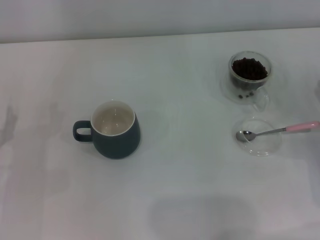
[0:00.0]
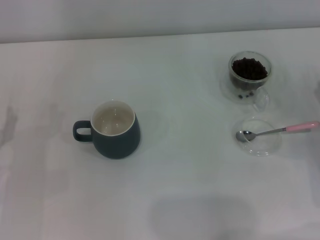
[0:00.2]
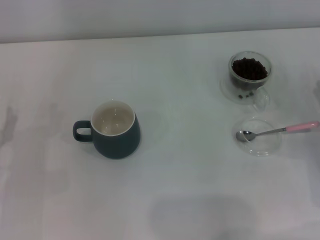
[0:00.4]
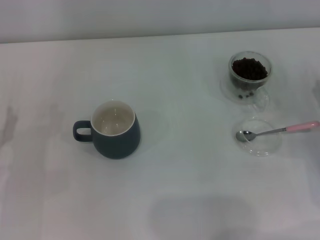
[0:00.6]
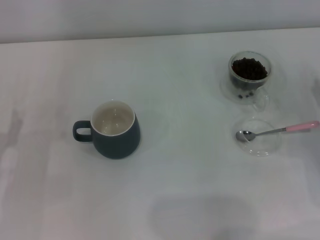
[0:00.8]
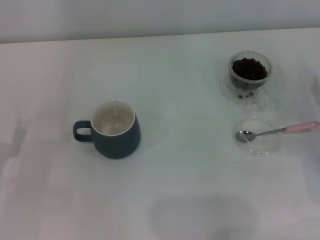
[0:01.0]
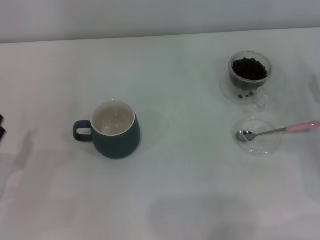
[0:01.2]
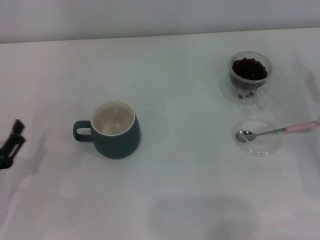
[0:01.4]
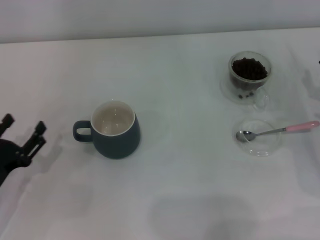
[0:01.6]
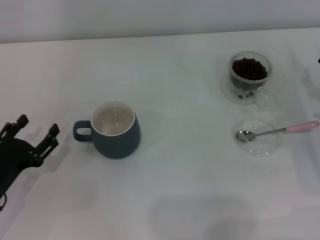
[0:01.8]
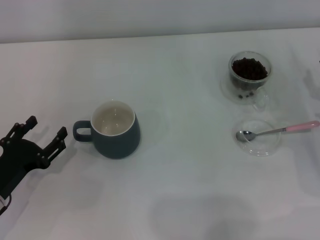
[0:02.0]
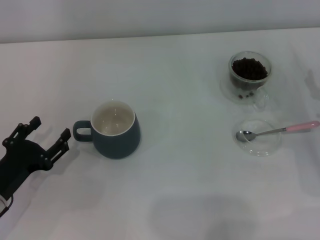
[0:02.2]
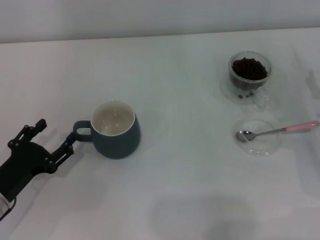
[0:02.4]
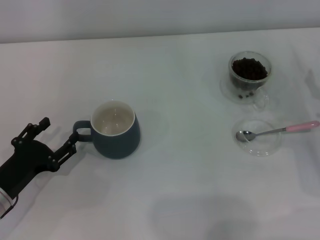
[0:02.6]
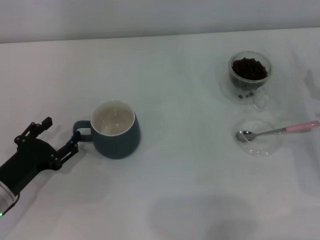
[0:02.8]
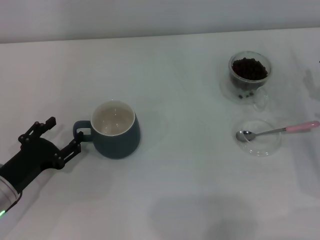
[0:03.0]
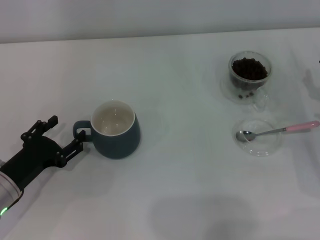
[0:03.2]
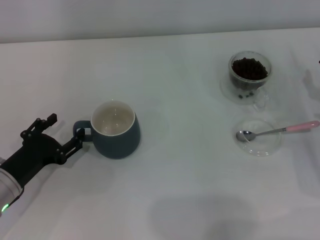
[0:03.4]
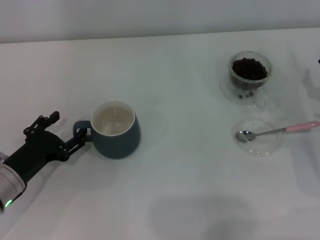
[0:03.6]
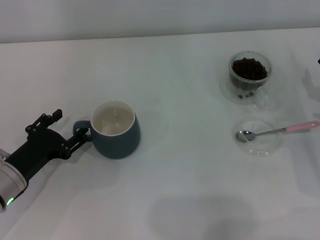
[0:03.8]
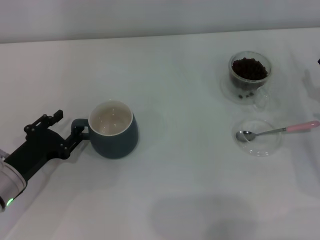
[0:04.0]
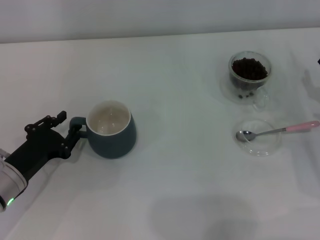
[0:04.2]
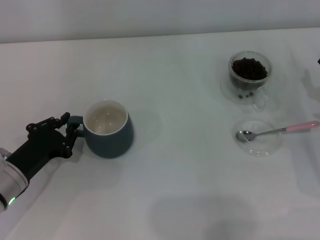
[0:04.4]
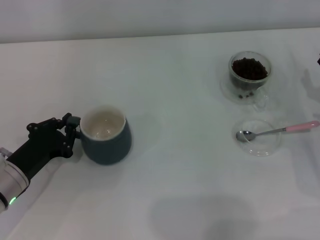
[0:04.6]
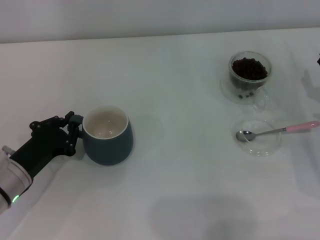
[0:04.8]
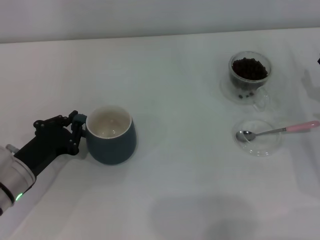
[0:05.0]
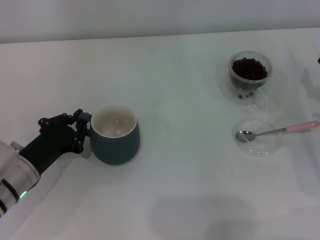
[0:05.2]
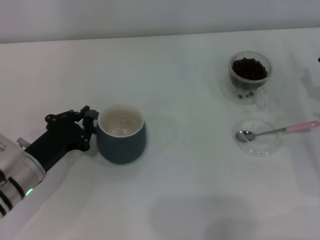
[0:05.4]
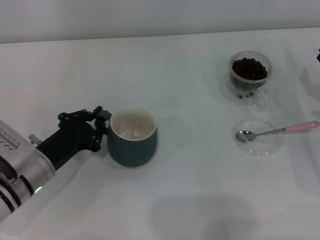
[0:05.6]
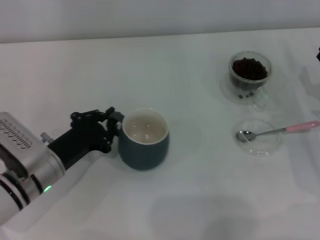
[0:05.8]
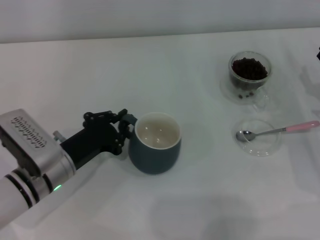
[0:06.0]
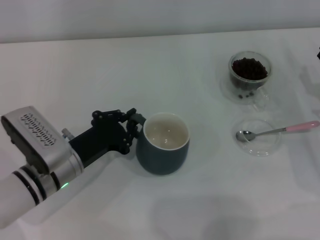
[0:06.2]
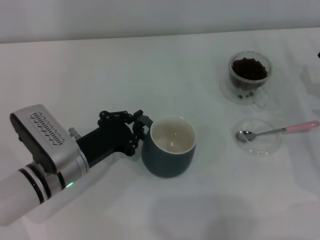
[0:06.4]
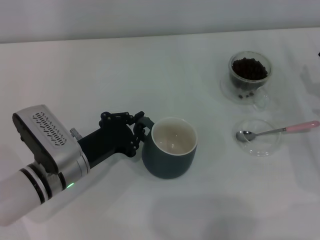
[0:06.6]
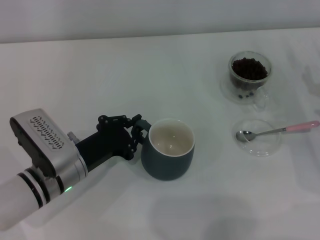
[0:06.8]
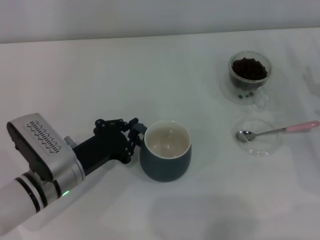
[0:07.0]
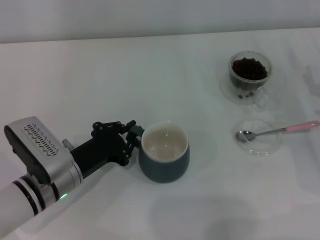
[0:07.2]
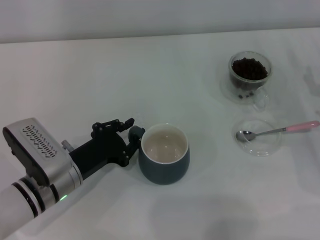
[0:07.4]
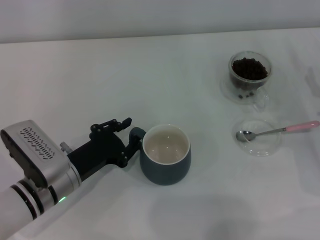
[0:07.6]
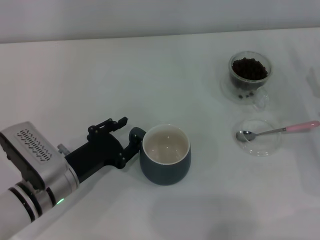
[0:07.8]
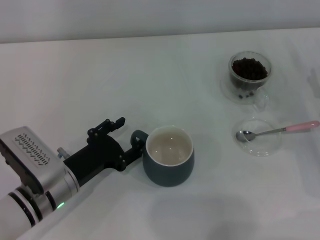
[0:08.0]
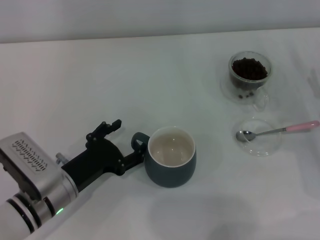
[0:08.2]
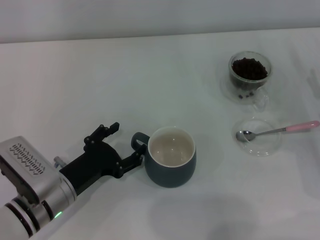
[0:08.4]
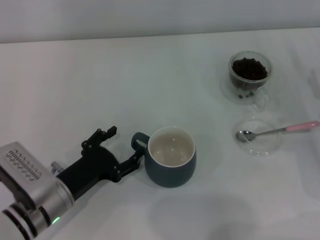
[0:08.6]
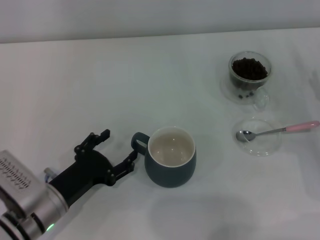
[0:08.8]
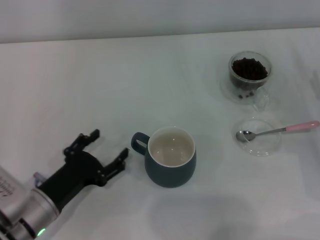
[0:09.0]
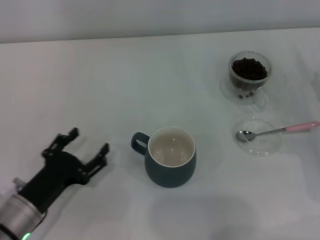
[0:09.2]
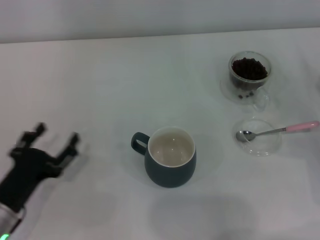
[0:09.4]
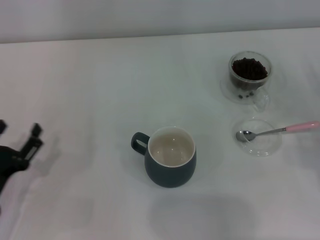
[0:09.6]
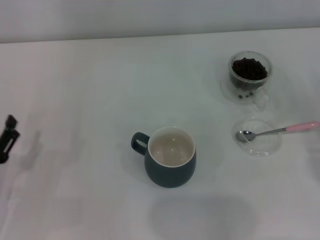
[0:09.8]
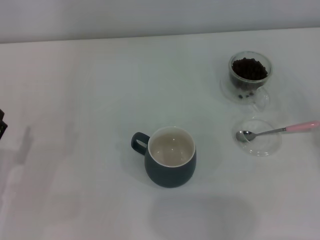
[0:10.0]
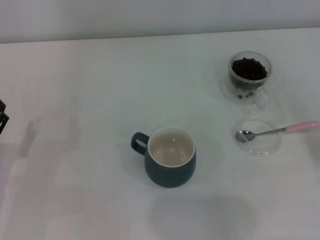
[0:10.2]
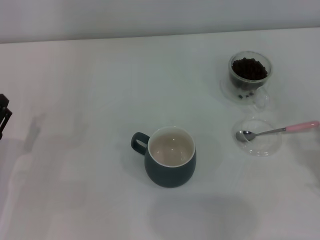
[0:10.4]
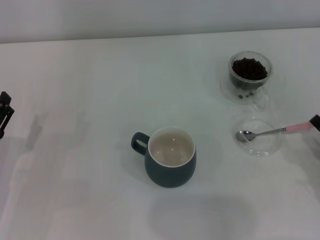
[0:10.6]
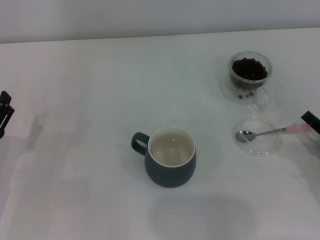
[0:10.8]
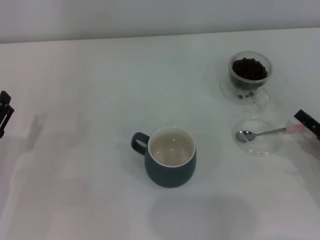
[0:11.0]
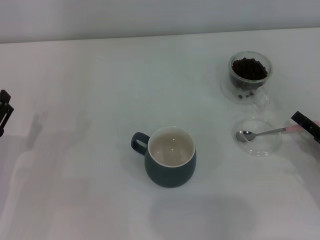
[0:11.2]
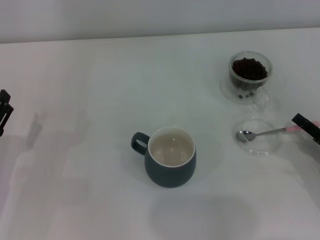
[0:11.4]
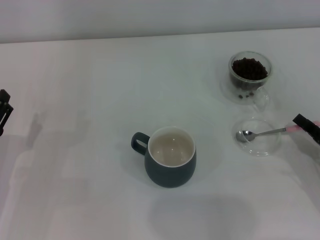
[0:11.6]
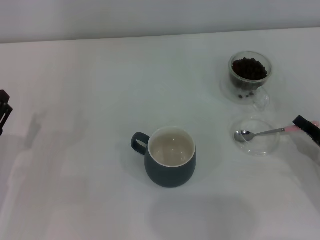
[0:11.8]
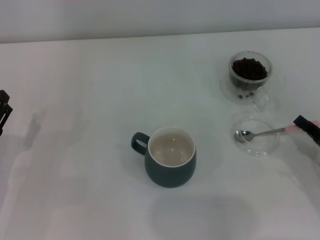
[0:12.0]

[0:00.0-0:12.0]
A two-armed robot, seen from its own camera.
Task of the whole recording: Use a pink spoon to take out the coffee beans from the glass and pour them into the gray cup.
Step, 0:00.0 to 0:08.8: Move the cup to the center of view with the left gripper.
0:01.6 to 0:03.0: There are only small adjustments of the grippers.
0:03.0 to 0:04.4: The left gripper closes.
0:04.4 to 0:06.0: The left gripper shifts roughly 5 cm to the right.
0:06.0 to 0:07.6: The grippers move only a little.
0:07.6 to 0:09.0: The left gripper changes place by some 5 cm, and opens.
0:09.0 to 0:10.4: The right gripper travels backward by some 10 cm, while the left gripper is displaced to the left by about 10 cm.
0:10.4 to 0:12.0: The right gripper closes up.

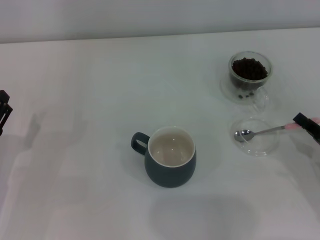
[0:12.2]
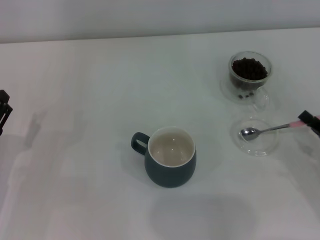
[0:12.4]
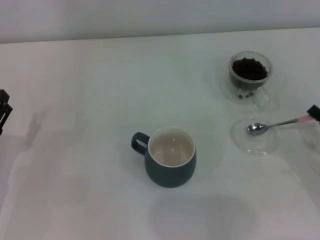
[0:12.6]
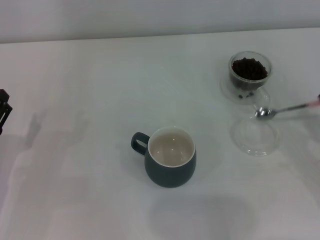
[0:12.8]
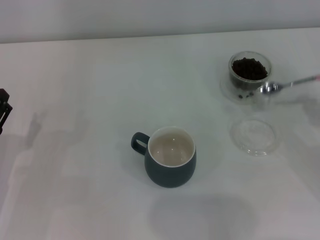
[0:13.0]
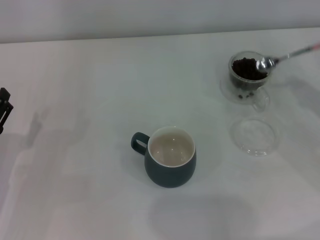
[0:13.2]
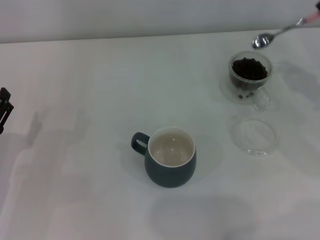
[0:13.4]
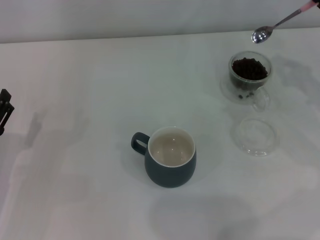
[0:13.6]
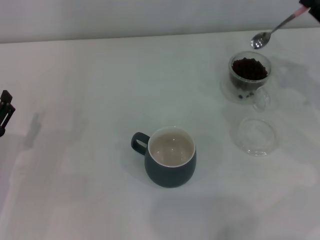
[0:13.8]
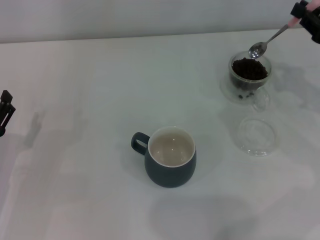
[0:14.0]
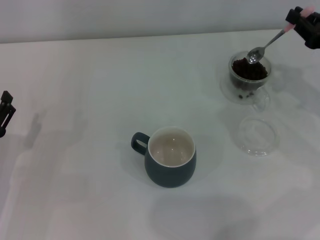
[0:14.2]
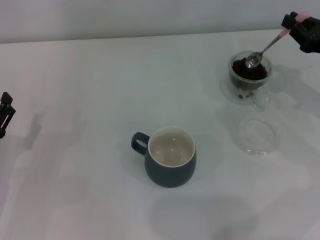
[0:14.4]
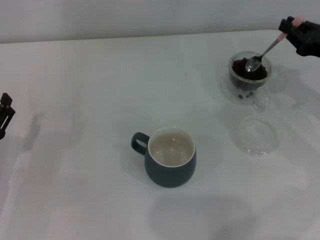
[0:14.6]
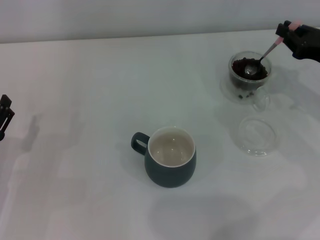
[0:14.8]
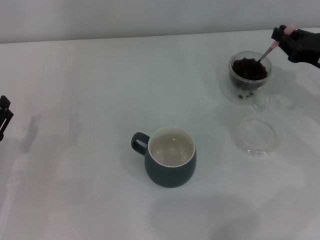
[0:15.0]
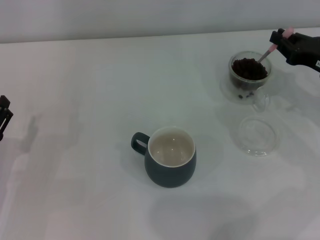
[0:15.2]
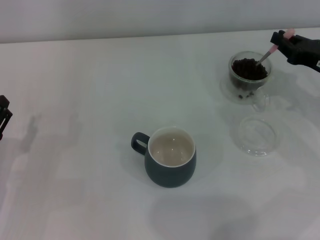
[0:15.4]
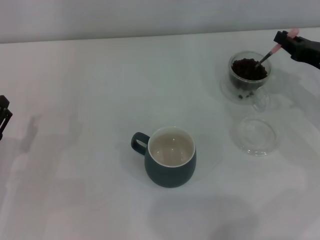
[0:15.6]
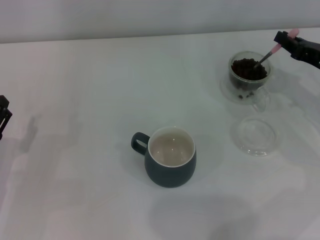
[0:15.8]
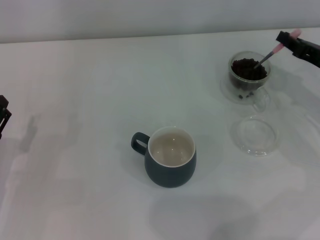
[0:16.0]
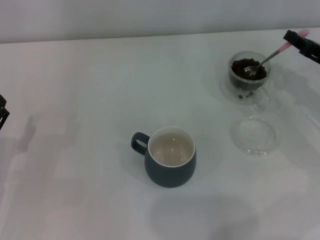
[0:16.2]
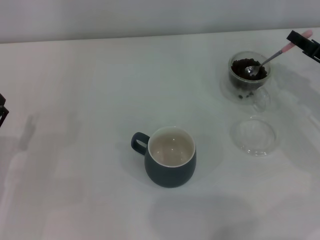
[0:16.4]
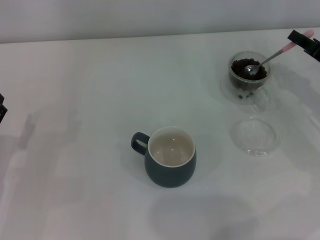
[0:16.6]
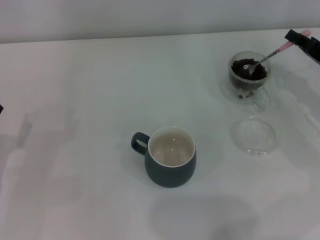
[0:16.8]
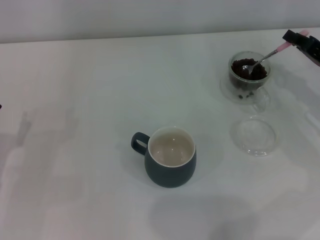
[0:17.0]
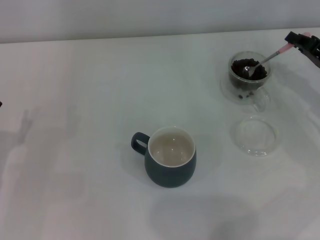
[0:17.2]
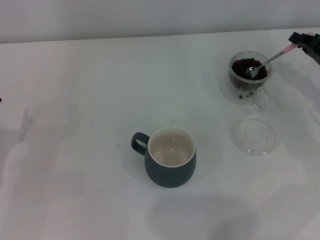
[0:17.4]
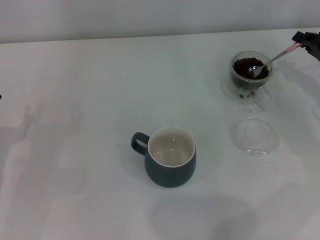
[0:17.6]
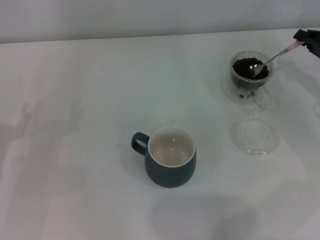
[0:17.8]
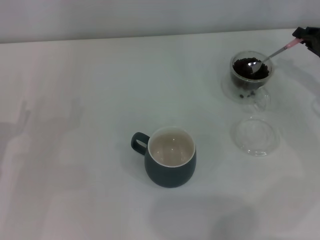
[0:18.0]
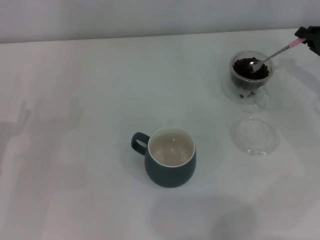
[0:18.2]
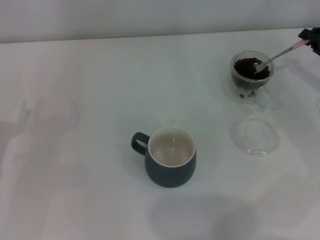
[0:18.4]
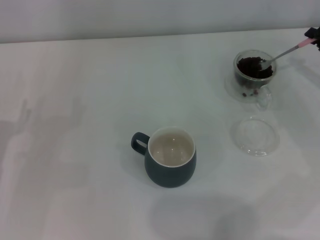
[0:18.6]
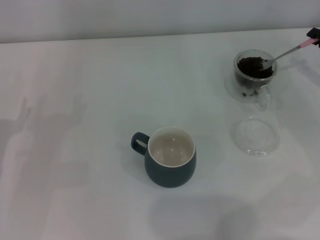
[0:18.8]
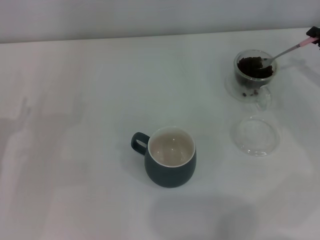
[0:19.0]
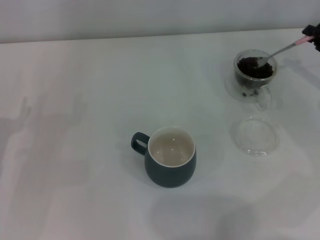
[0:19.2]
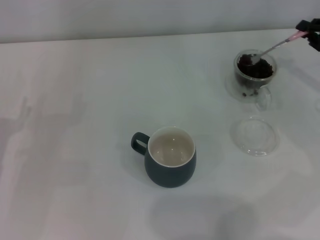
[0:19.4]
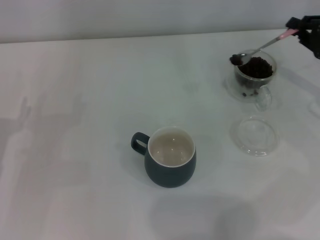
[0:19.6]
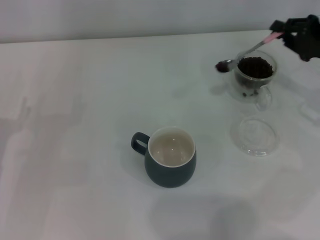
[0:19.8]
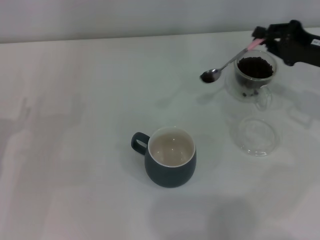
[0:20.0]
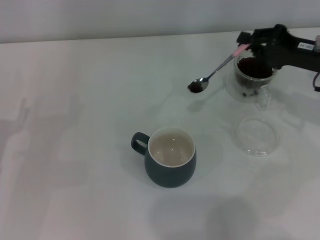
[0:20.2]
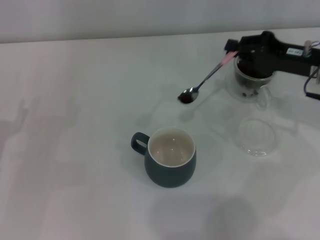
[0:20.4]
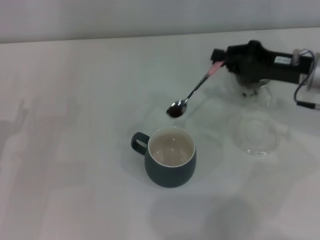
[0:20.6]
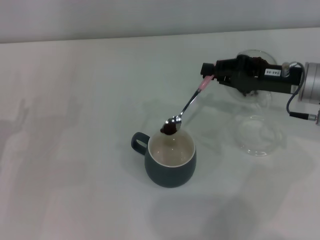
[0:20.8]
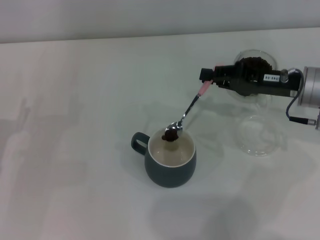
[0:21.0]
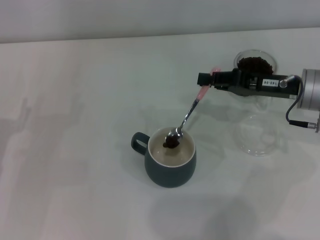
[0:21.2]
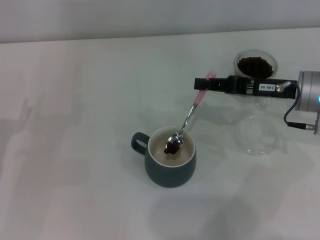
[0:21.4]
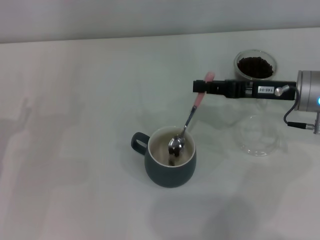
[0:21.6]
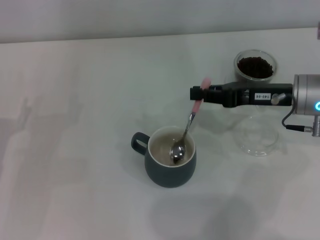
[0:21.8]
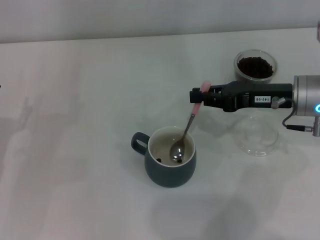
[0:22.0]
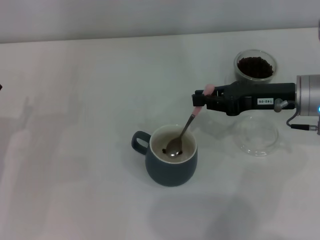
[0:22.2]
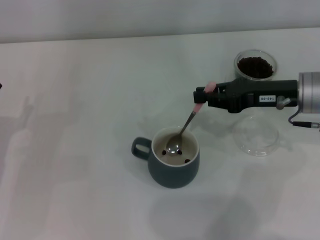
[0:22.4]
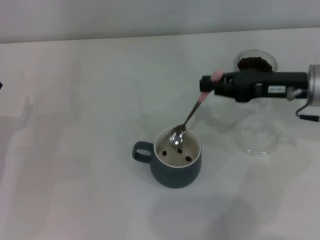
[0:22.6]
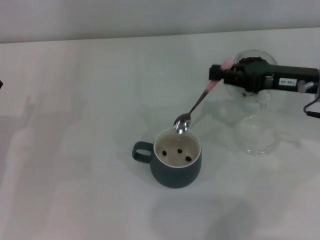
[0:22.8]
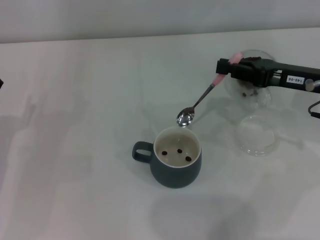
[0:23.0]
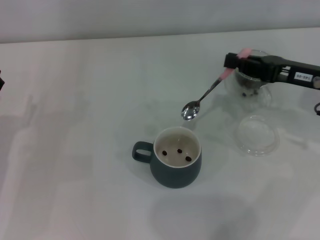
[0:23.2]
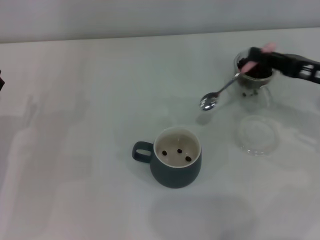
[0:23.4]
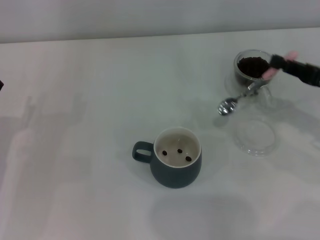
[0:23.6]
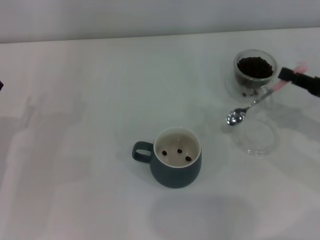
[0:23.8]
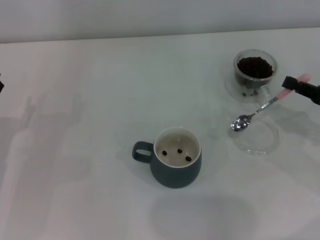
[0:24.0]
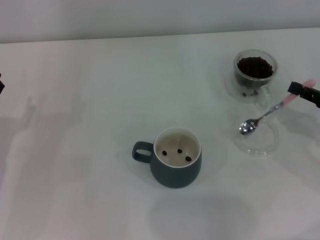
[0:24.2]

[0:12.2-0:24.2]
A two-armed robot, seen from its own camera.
Task of the whole recording: Use a pink spoon to take out the coffee beans from the glass and pour them into the gray cup.
Step, 0:13.0 to 0:21.8: Scoop a spoonful of beans into the cup with the right gripper.
0:12.2 to 0:13.8: The right gripper is displaced forward and upward by approximately 20 cm.
0:13.8 to 0:15.2: The grippers make only small movements.
0:18.2 to 0:19.8: The grippers make only small movements.
0:19.8 to 0:21.2: The right gripper is displaced to the left by roughly 10 cm.
0:22.6 to 0:24.2: The right gripper goes roughly 15 cm to the right, backward and downward.
